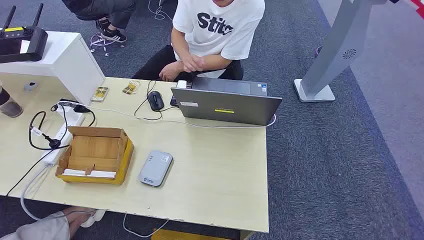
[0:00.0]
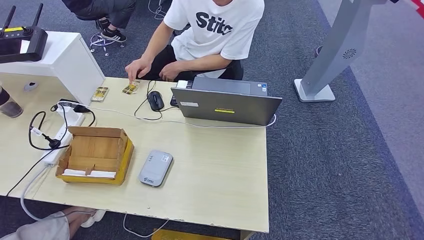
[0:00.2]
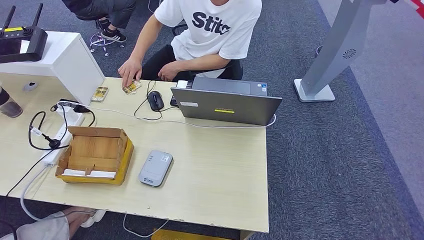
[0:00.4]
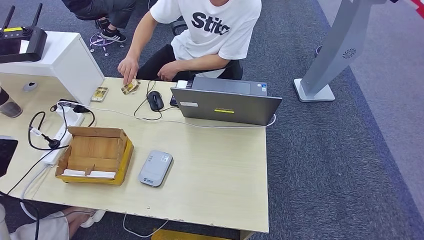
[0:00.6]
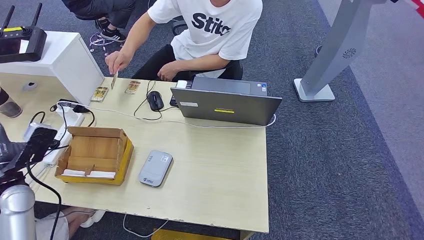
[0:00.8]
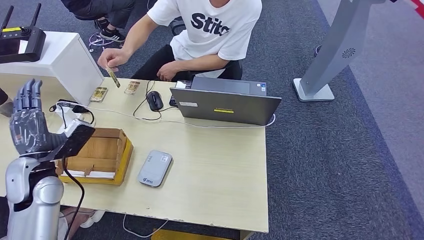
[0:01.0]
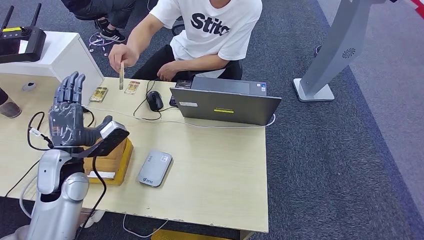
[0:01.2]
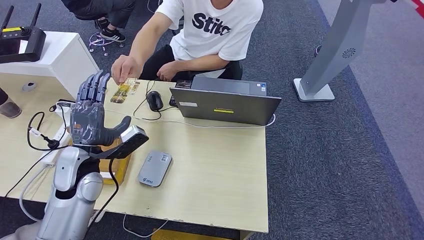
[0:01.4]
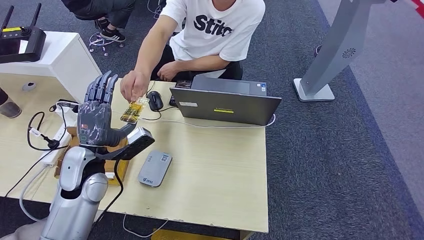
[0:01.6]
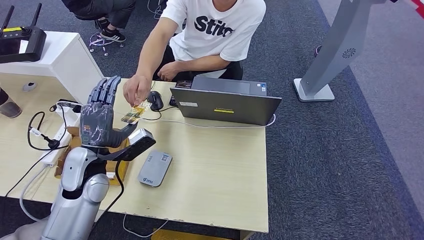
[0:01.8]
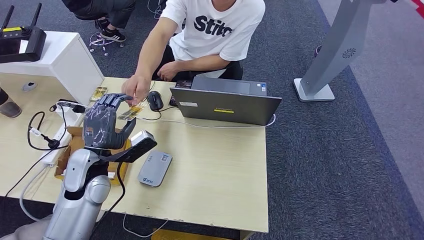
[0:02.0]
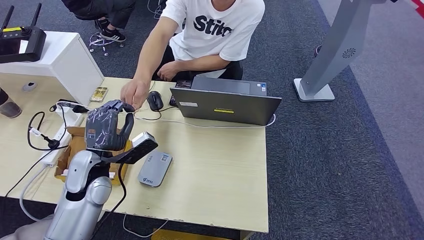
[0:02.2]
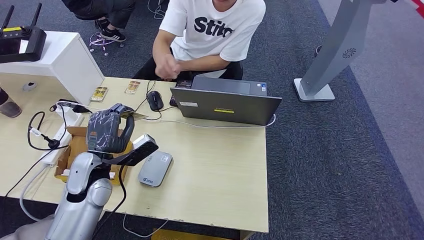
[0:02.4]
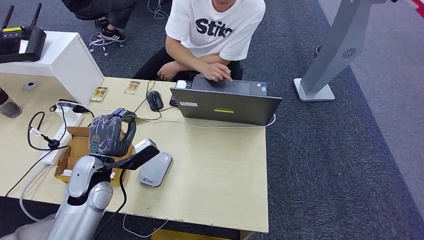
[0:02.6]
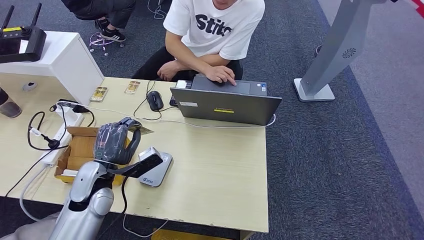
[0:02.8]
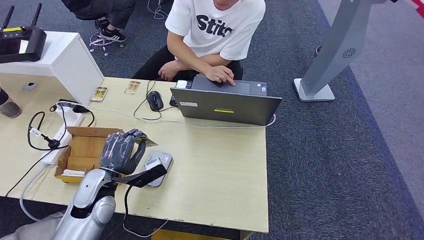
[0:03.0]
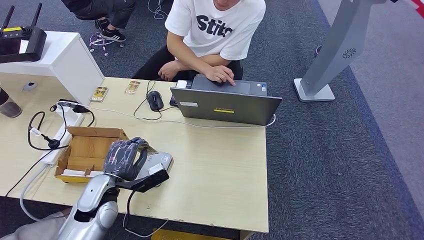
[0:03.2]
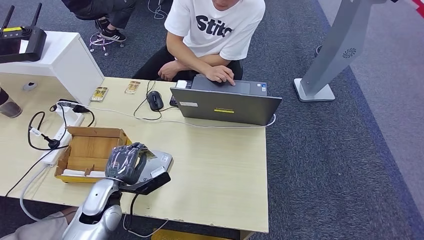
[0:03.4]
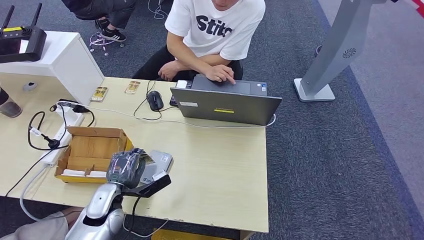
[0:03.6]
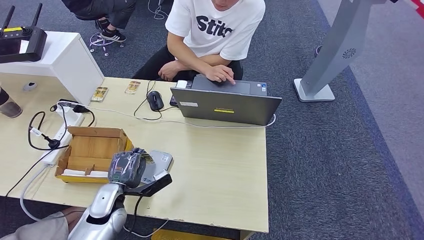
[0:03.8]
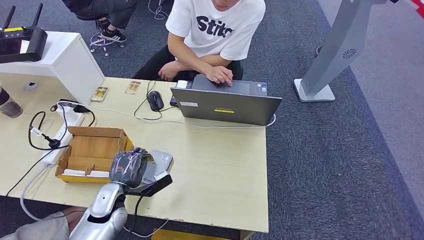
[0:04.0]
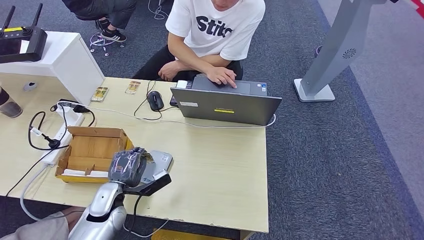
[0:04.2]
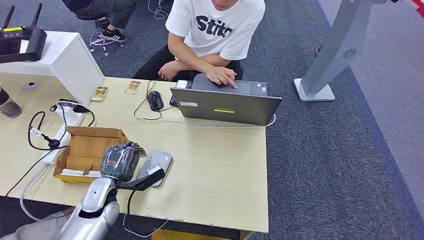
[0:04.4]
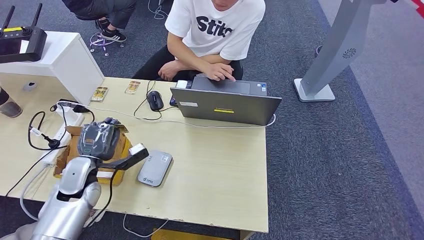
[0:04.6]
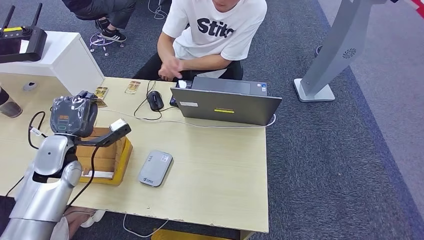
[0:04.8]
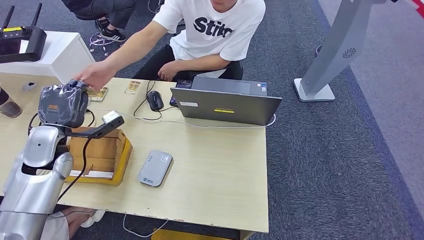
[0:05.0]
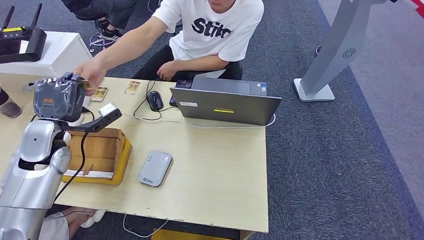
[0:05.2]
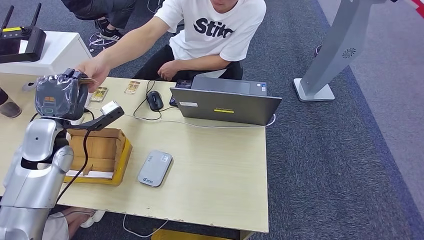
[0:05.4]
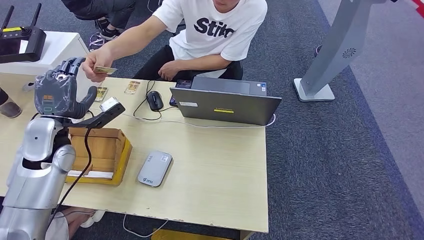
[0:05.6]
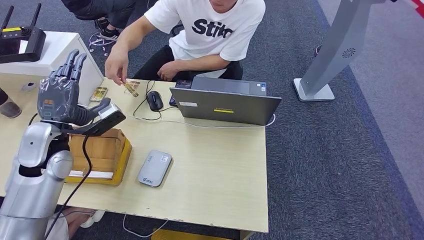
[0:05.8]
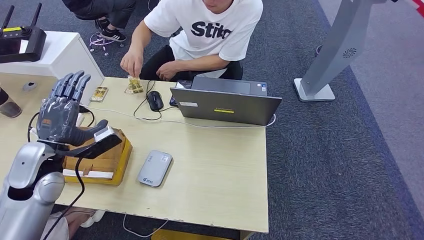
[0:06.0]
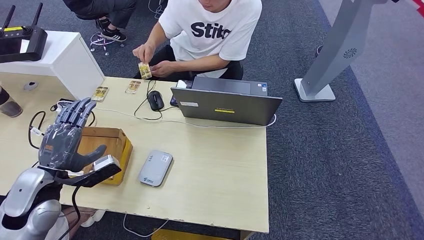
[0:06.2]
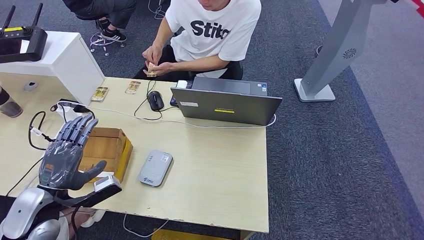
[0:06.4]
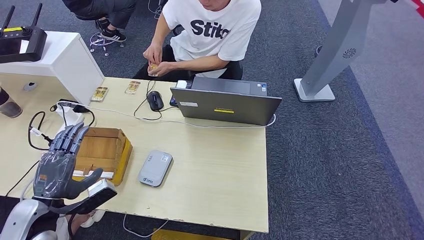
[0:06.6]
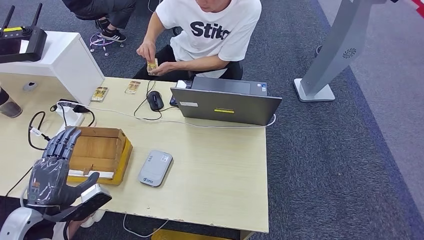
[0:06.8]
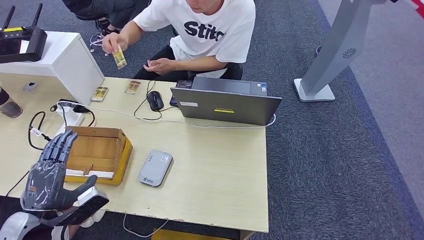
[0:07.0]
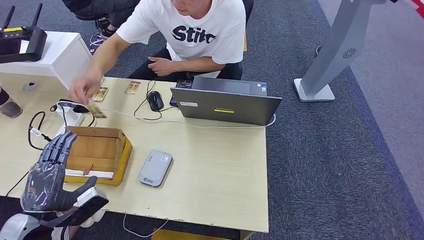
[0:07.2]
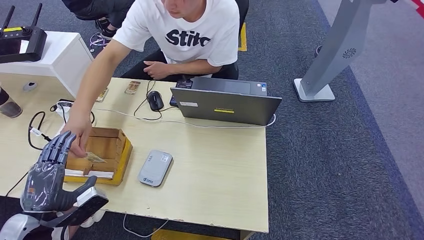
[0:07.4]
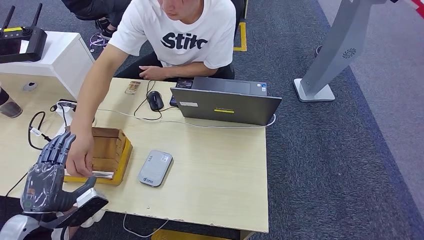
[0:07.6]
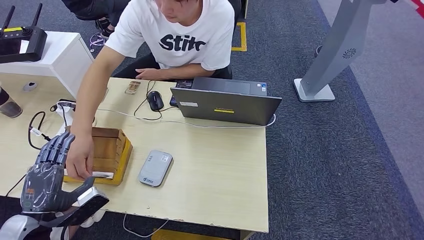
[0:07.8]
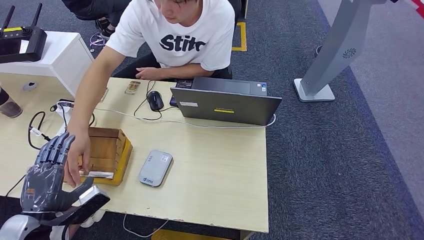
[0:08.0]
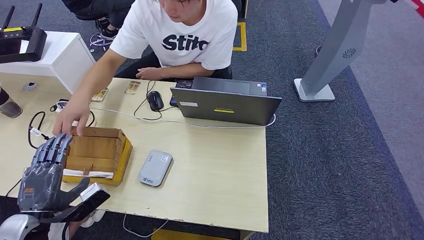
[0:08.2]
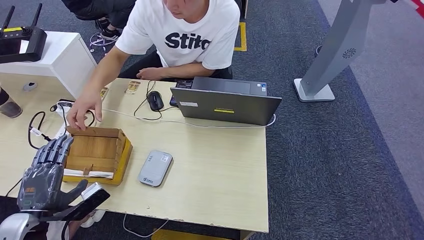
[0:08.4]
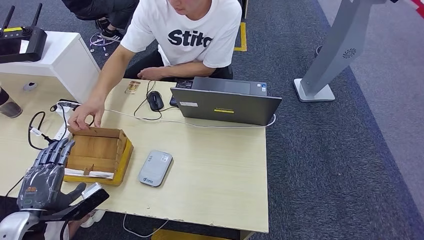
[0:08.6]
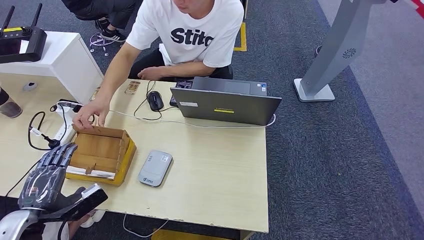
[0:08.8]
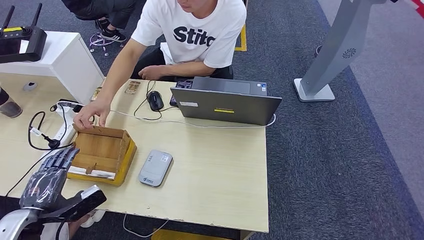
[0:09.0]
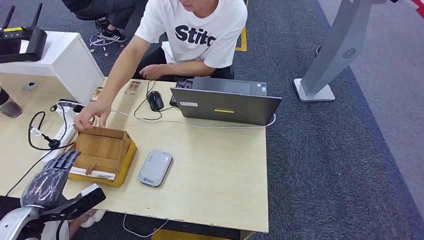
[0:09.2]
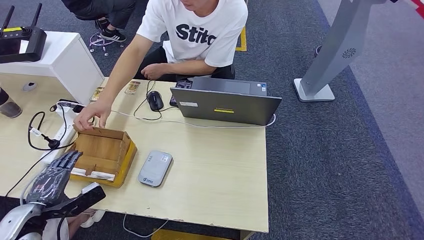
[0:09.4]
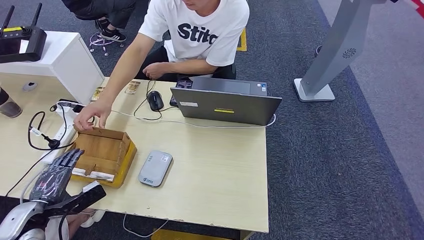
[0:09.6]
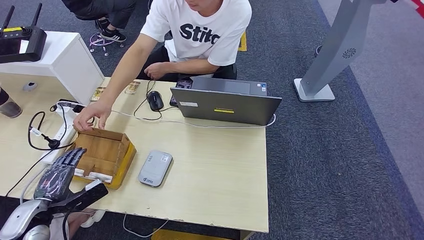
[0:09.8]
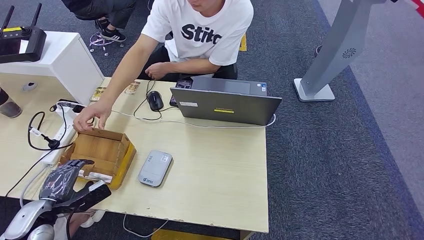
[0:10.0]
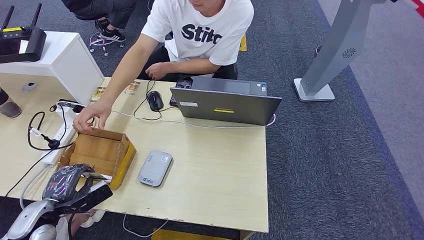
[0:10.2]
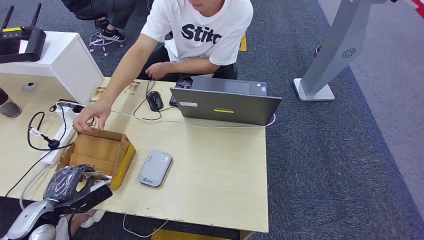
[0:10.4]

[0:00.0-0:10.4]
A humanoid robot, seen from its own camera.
Step, 0:00.0 to 0:02.8: Take the ID card from the person's hand.
Step, 0:03.0 to 0:04.2: Place the ID card on the card reader.
Step, 0:04.6 to 0:05.6: Hand the ID card to the person.
0:01.4 to 0:03.0: The left hand is displaced downward by some 5 cm.
0:03.0 to 0:04.4: The left hand shifts roughly 5 cm downward.
0:04.4 to 0:06.0: The left hand is displaced upward and to the left by roughly 20 cm.
0:06.0 to 0:07.4: The left hand moves backward and downward, roughly 15 cm.
0:09.0 to 0:10.4: The left hand travels downward by roughly 5 cm.

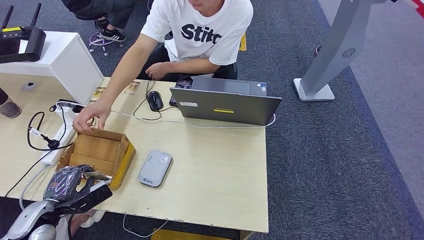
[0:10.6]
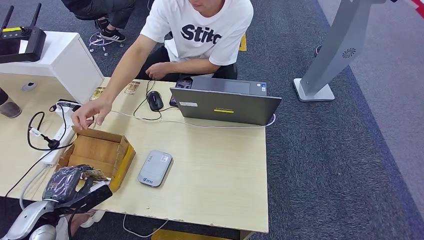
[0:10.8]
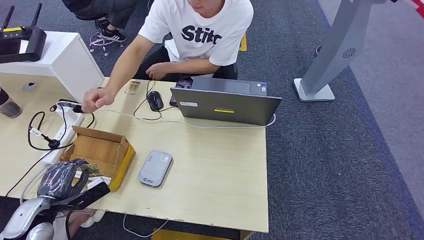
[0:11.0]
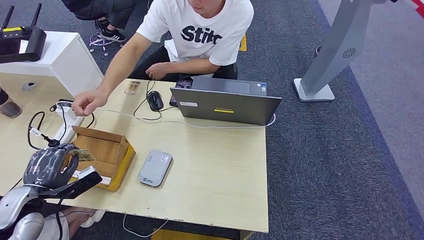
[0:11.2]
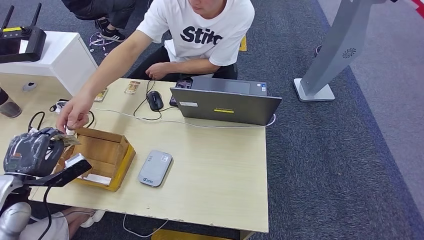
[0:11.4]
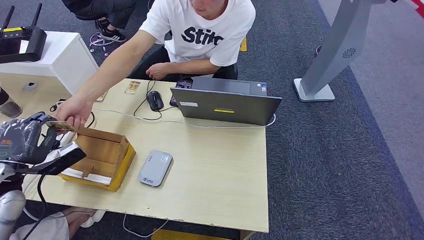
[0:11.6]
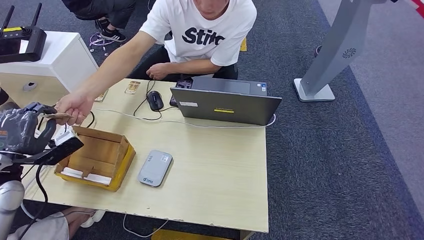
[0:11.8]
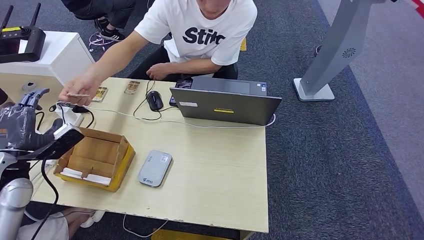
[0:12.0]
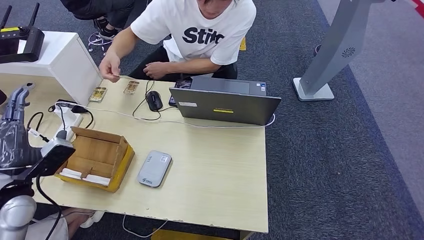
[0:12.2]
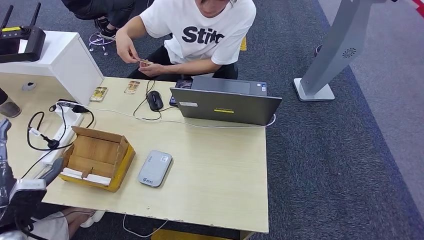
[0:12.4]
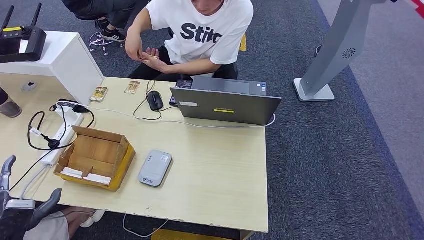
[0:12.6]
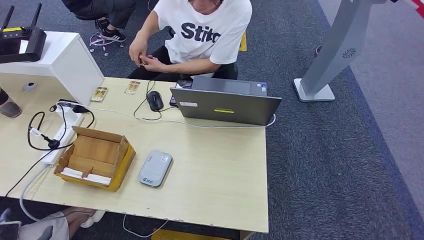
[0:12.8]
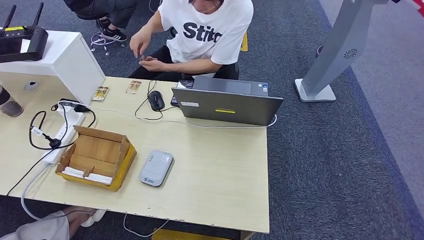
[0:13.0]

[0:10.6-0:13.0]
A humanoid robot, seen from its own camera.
Step, 0:11.2 to 0:13.0: Hand the room key to the person.
0:10.6 to 0:11.8: The left hand moves upward and forward, some 15 cm.
0:11.8 to 0:13.0: The left hand shifts some 35 cm backward and downward.

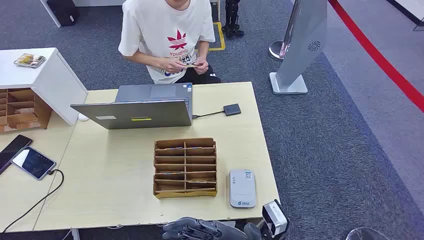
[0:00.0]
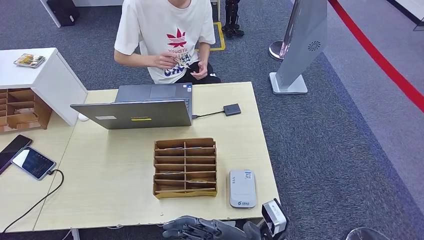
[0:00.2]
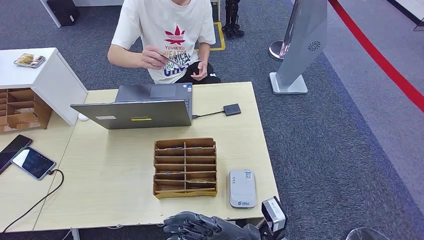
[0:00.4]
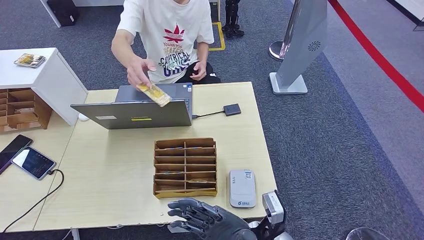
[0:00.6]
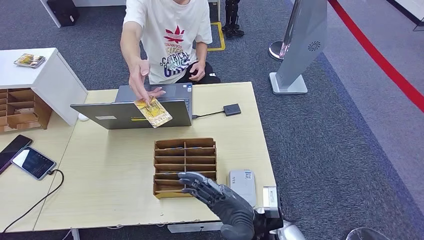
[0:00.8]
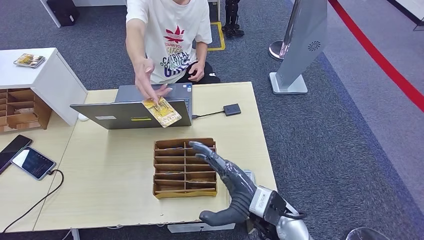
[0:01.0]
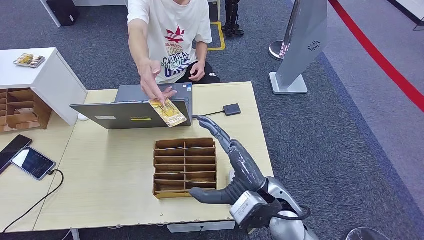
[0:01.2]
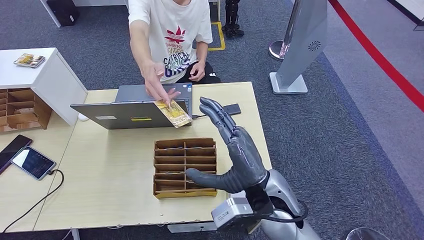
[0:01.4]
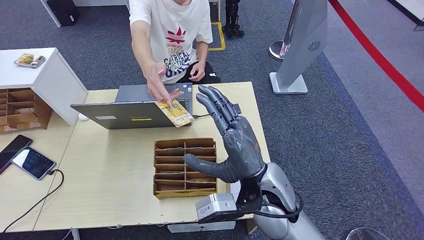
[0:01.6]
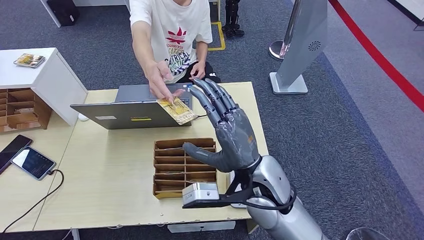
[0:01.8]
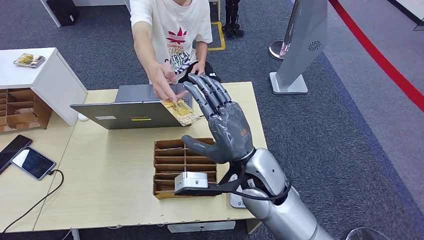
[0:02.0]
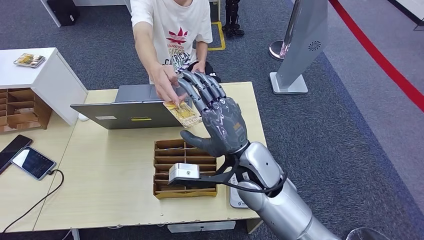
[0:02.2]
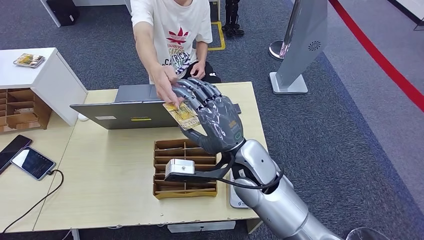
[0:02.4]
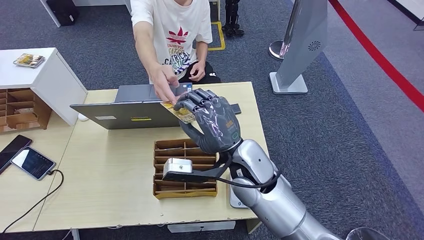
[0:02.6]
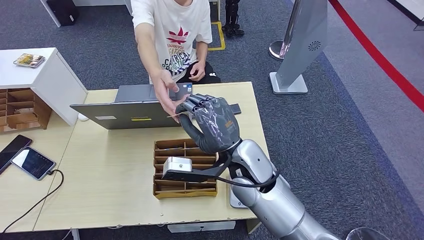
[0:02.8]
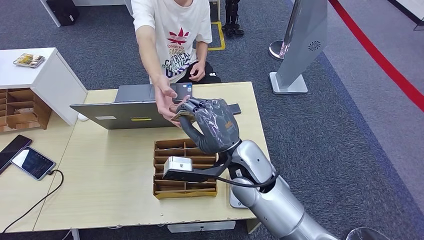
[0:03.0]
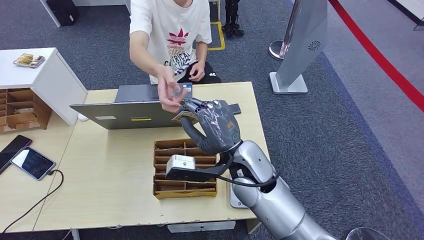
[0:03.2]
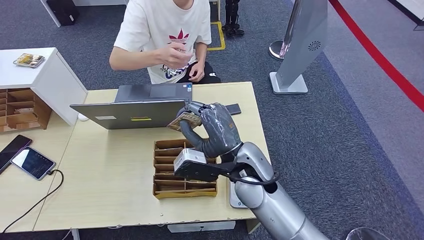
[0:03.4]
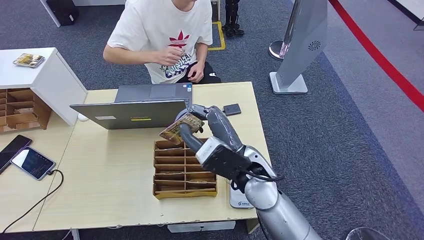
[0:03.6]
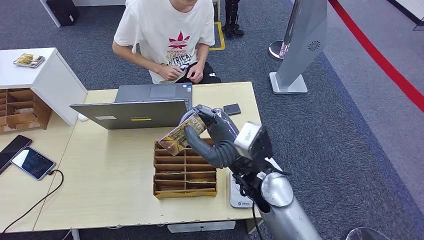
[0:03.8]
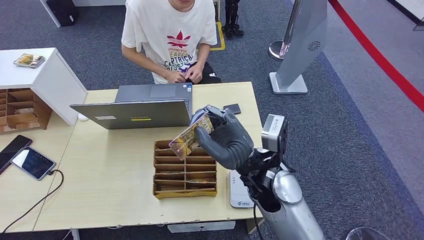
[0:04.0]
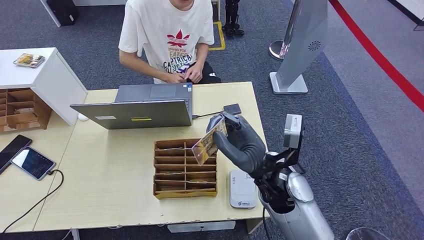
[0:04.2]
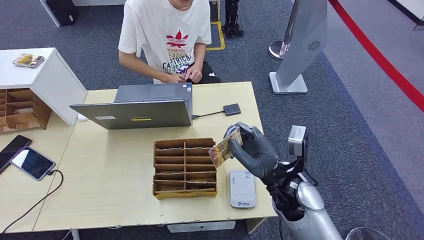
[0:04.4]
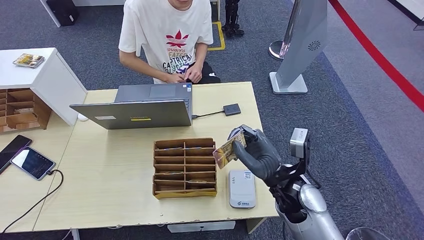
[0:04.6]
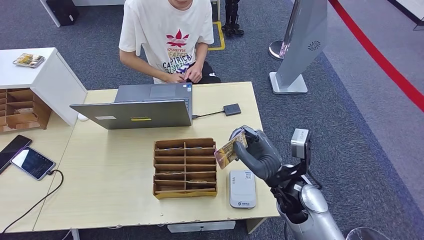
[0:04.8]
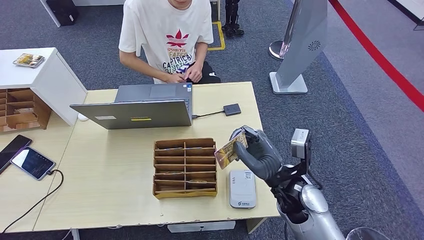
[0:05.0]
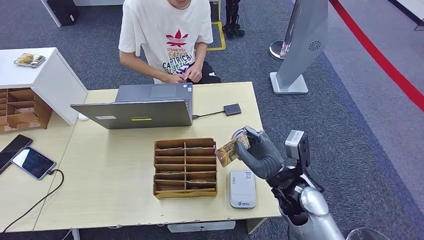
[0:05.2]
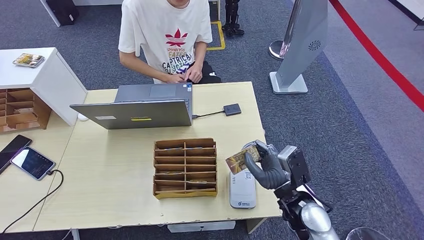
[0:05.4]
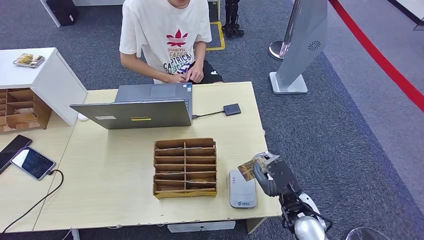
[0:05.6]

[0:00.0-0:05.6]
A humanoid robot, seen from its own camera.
Step, 0:00.0 to 0:03.6: Take the ID card from the person's hand.
0:01.4 to 0:02.8: The right hand moves forward, some 5 cm.
0:02.8 to 0:04.2: The right hand goes roughly 5 cm to the right.
0:04.2 to 0:05.6: The right hand shifts approximately 15 cm downward, to the right and backward.
